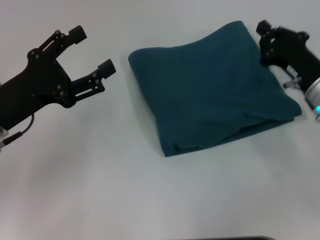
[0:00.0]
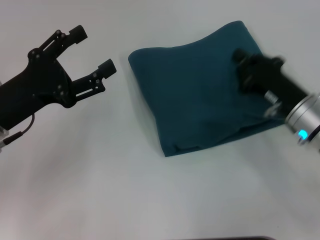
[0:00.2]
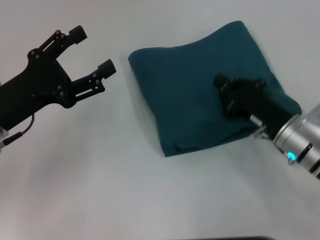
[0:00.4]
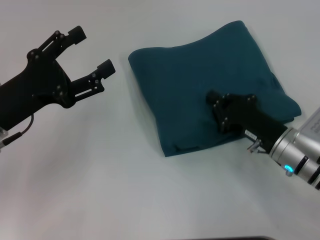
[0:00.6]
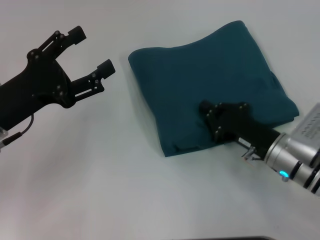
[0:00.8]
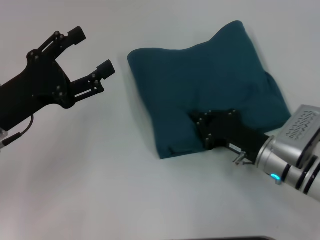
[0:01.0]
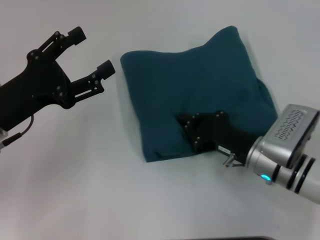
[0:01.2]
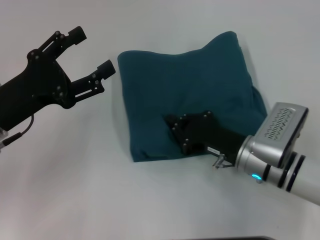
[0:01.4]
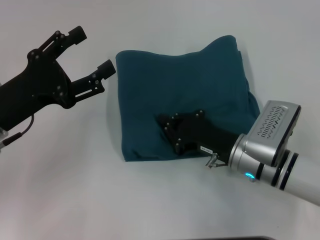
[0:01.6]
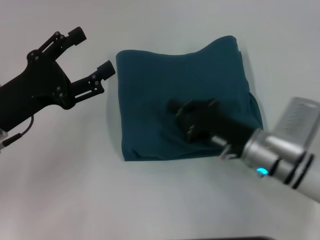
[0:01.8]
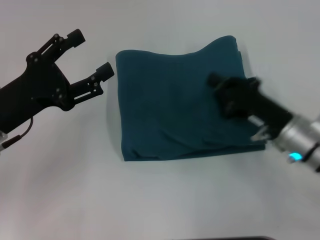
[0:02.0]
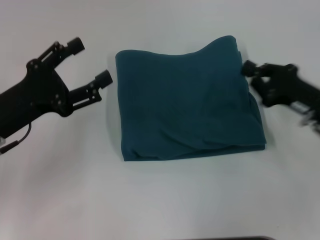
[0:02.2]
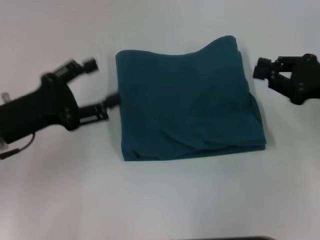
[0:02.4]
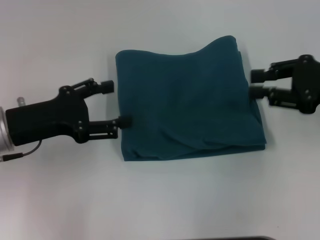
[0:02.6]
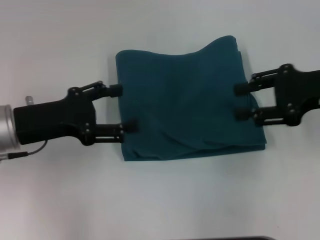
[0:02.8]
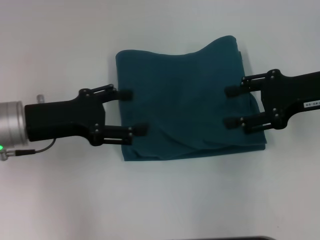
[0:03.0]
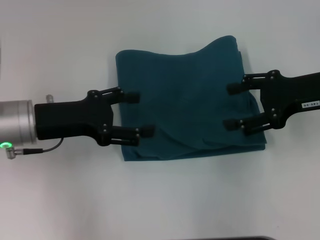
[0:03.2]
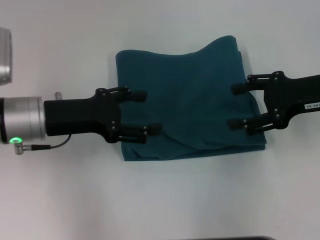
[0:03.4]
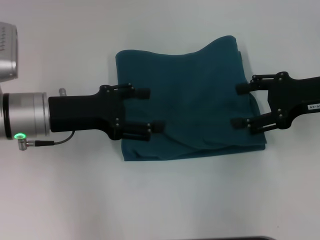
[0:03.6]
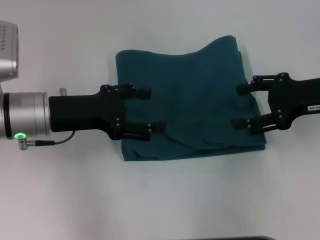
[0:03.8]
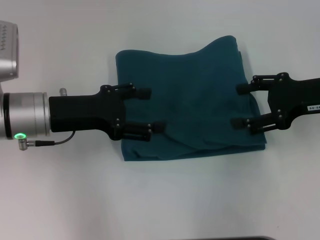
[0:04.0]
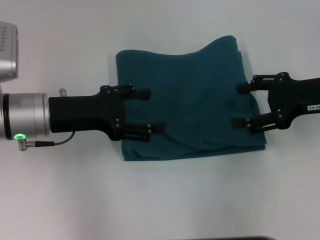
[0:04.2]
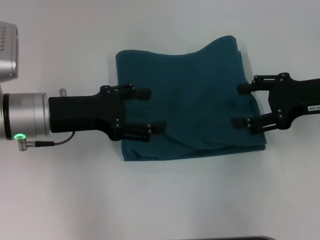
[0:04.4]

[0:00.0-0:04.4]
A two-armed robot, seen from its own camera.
0:00.0 to 0:01.4: The right gripper moves to the left and backward, roughly 10 cm.
0:01.4 to 0:03.0: The right gripper shifts approximately 20 cm upward, to the right and forward, and opens its fingers.
0:03.0 to 0:04.4: The grippers stay close to where they were, moving slightly.
